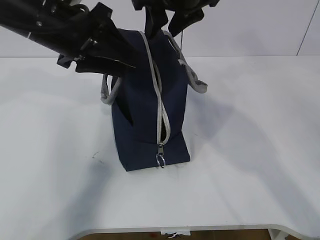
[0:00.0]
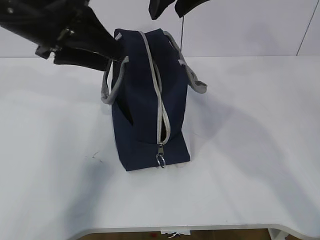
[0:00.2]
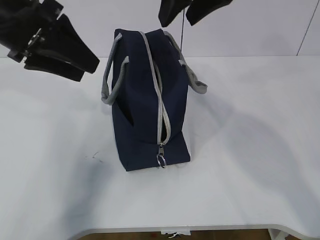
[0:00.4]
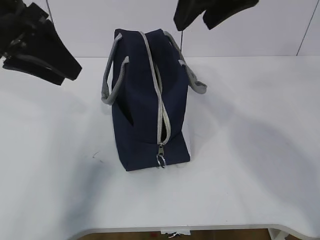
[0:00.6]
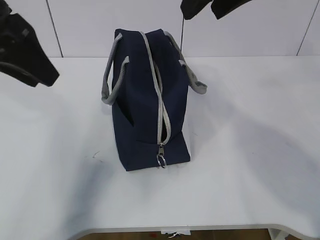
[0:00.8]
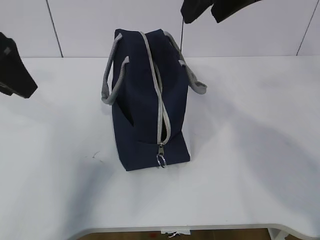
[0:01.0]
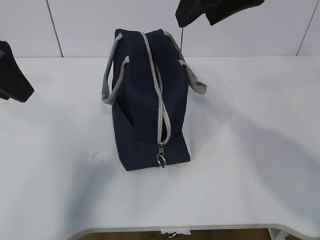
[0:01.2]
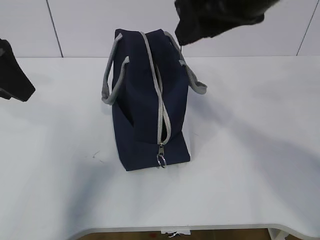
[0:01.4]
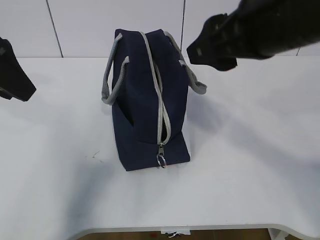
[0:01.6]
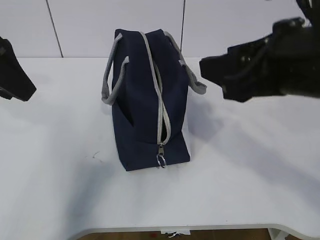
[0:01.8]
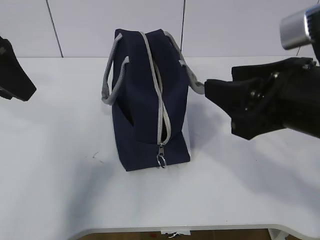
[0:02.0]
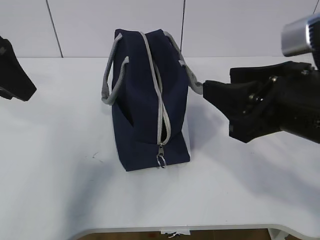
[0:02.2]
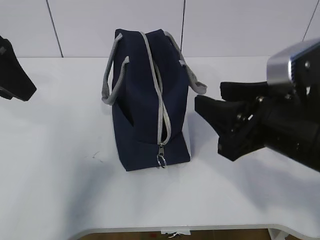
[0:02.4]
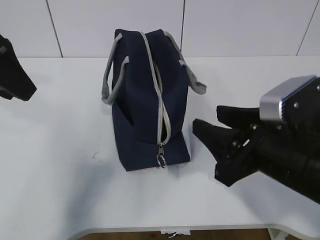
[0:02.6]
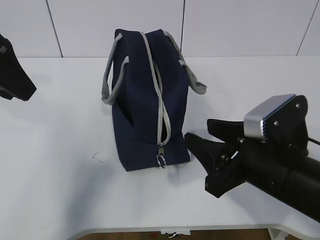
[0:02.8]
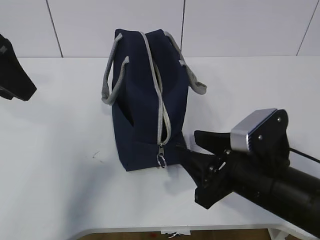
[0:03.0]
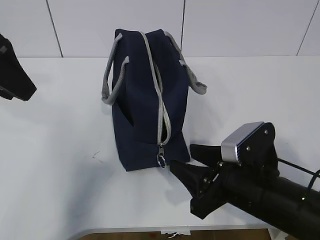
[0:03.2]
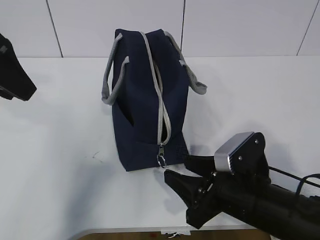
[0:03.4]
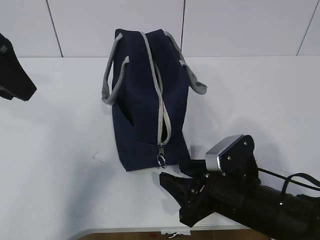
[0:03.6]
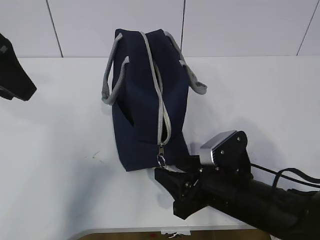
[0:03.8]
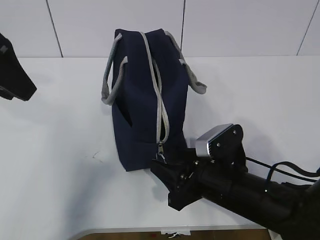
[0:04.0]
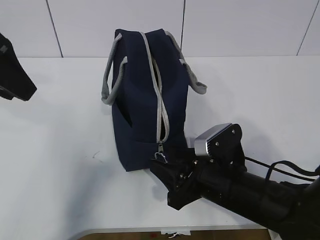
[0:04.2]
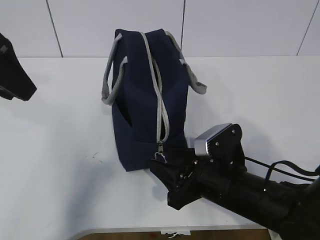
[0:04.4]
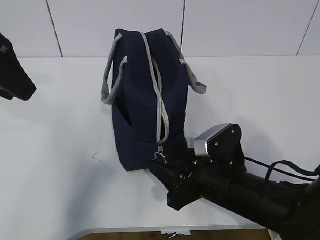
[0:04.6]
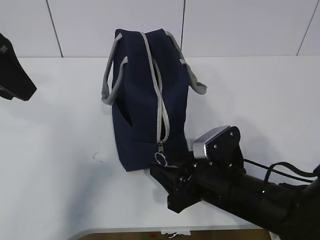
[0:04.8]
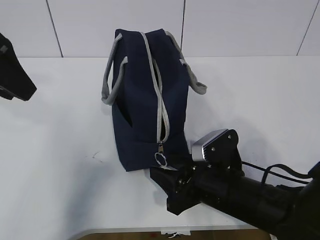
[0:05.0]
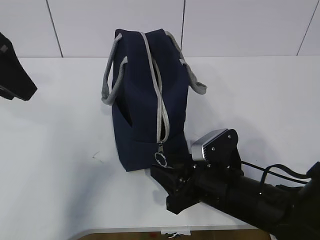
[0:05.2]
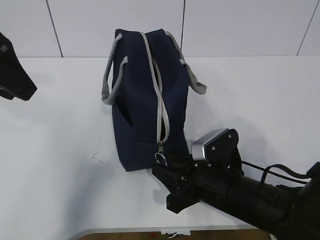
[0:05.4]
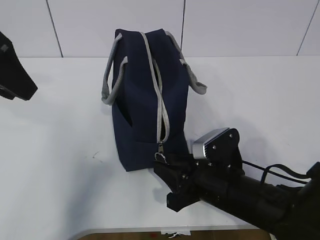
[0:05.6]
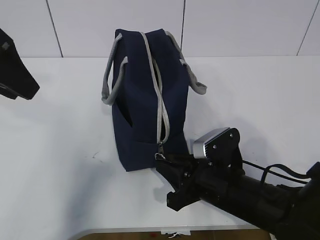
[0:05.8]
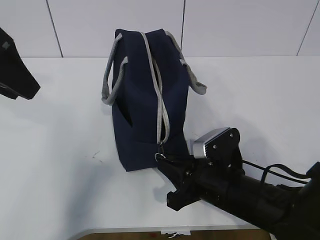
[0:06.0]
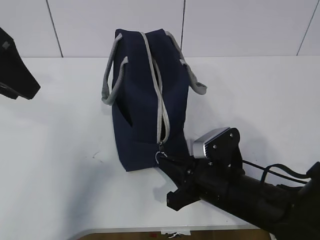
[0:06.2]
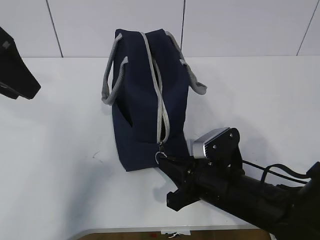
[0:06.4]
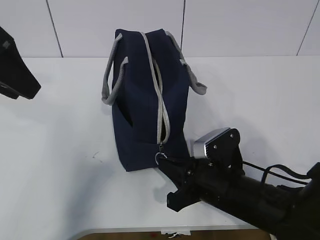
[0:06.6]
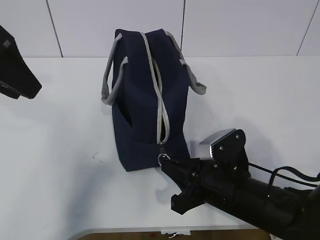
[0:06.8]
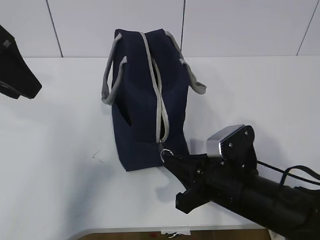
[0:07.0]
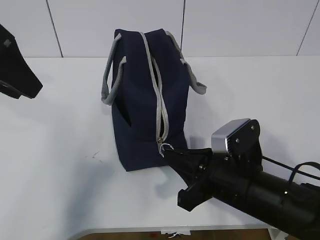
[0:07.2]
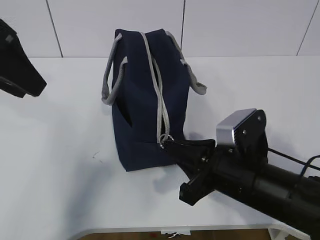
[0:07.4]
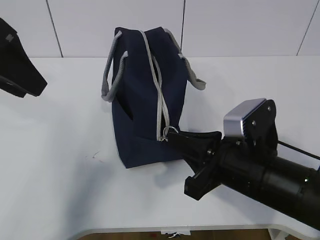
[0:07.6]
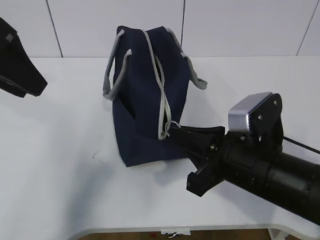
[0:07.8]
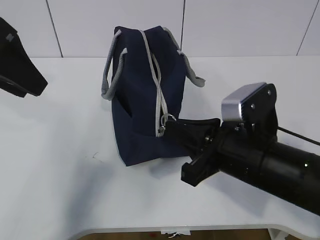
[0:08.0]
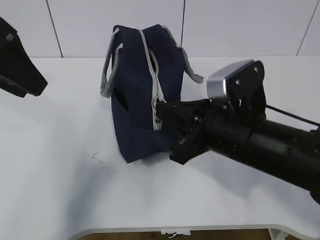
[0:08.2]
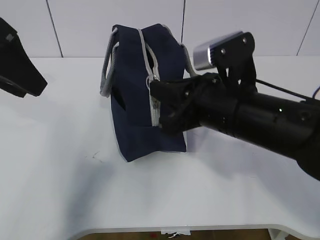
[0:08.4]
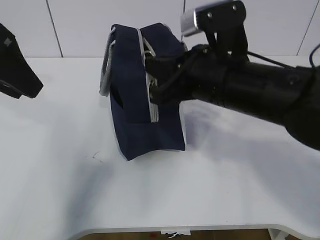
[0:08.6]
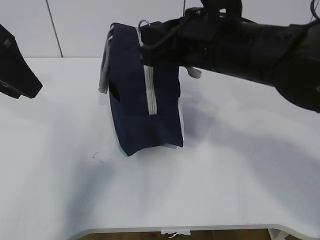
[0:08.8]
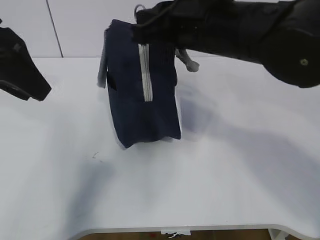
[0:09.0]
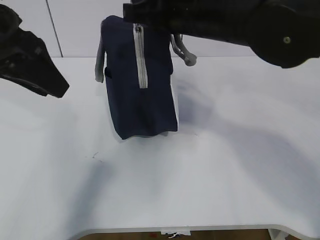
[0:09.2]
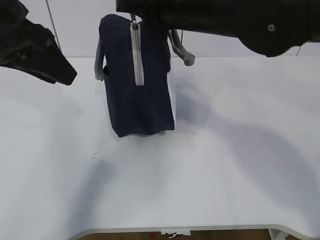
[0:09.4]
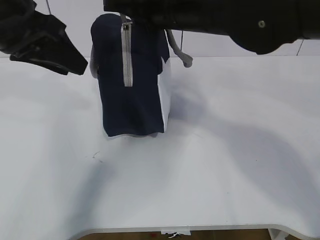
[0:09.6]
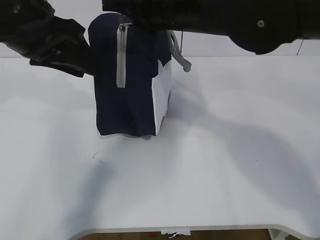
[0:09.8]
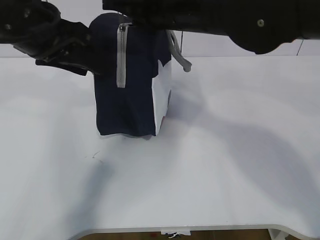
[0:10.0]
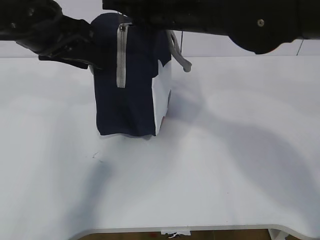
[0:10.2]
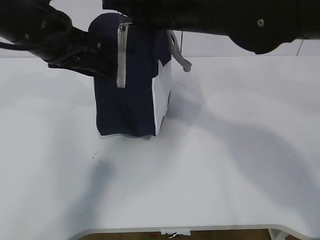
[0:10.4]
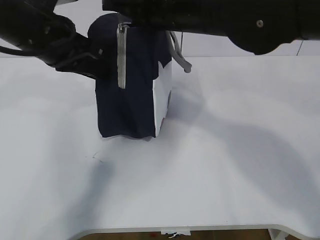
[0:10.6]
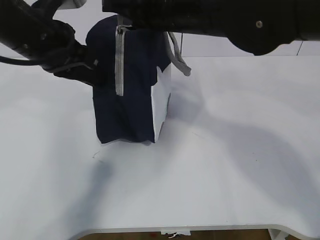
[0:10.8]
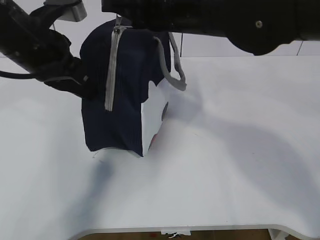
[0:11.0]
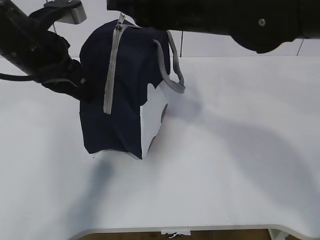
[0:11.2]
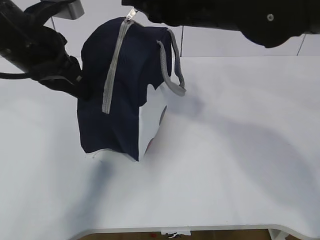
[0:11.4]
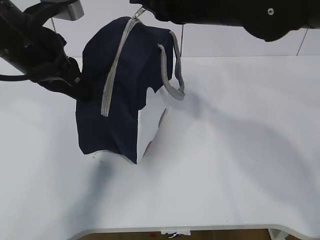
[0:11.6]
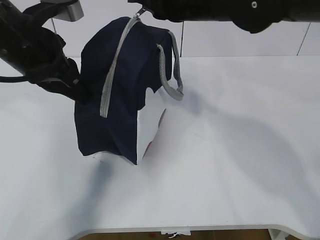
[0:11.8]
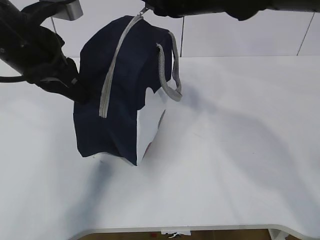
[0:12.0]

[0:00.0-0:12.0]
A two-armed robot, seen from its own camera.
Step, 0:00.0 to 0:05.6: Grab the lunch bag with your left hand.
Step, 0:05.8 to 0:10.4: Pull the zipper with your right hand.
0:00.0 to 0:01.6: The right gripper travels backward by about 15 cm; the left gripper travels to the left and backward by roughly 10 cm.
0:01.6 to 0:03.0: The right gripper heads downward, covering roughly 20 cm.
0:03.0 to 0:04.4: The right gripper goes some 5 cm downward.
0:04.4 to 0:06.0: The right gripper closes.
0:06.0 to 0:07.6: The right gripper travels upward by approximately 5 cm.
0:07.6 to 0:09.0: The right gripper goes roughly 20 cm upward and forward.
0:09.0 to 0:10.4: The left gripper is displaced forward and to the right by approximately 10 cm.
0:10.4 to 0:12.0: The right gripper heads forward, covering approximately 5 cm. Meanwhile the left gripper closes up.

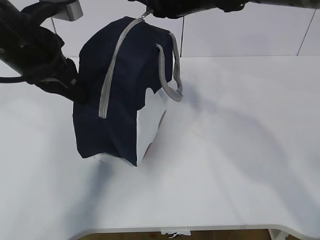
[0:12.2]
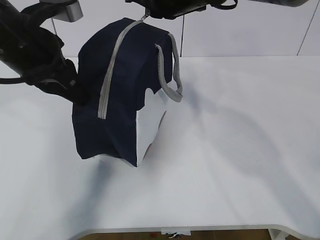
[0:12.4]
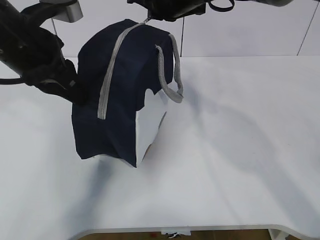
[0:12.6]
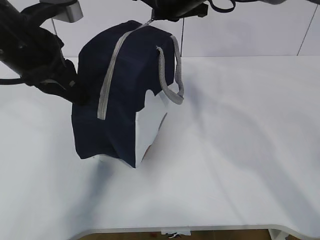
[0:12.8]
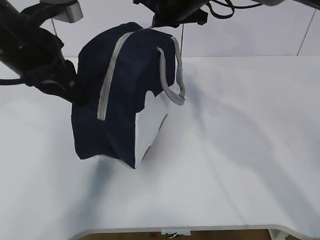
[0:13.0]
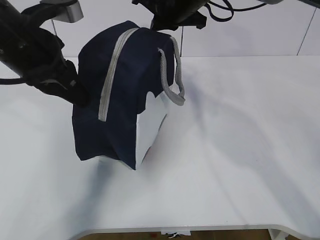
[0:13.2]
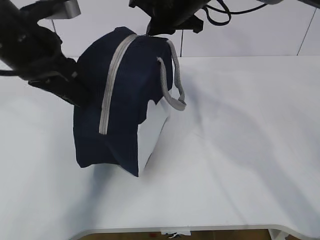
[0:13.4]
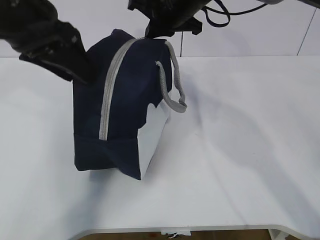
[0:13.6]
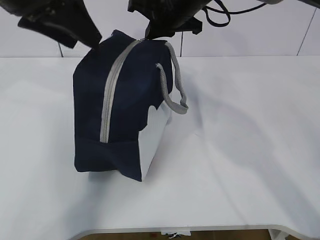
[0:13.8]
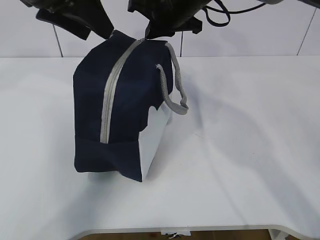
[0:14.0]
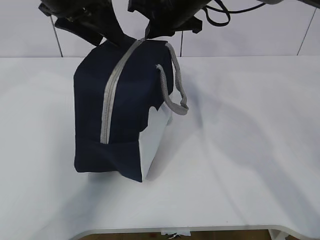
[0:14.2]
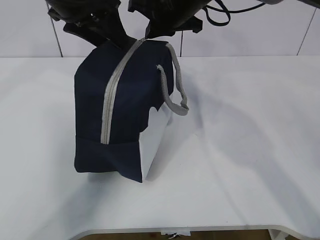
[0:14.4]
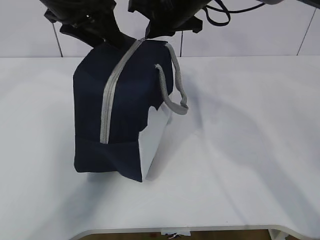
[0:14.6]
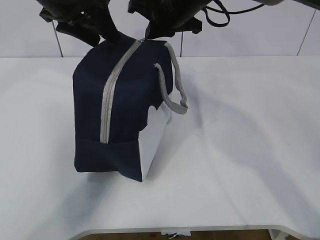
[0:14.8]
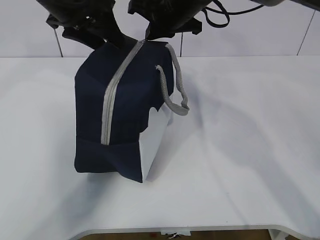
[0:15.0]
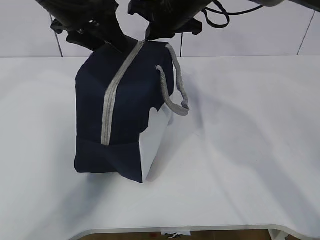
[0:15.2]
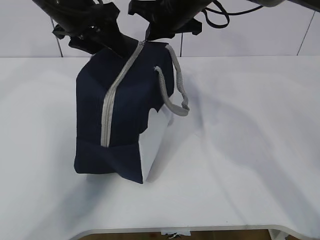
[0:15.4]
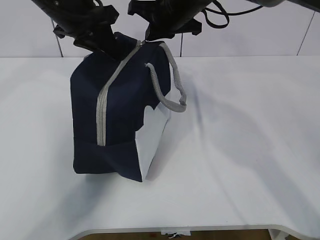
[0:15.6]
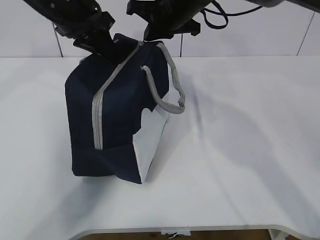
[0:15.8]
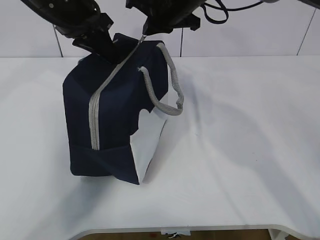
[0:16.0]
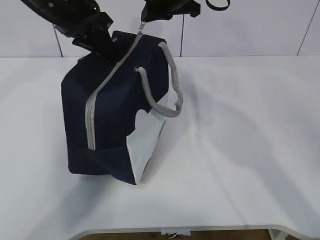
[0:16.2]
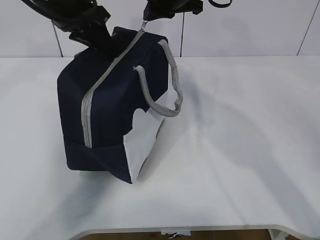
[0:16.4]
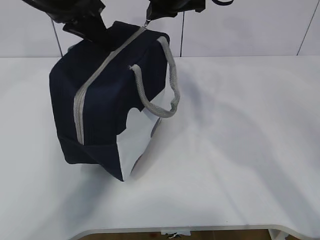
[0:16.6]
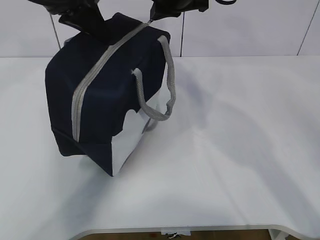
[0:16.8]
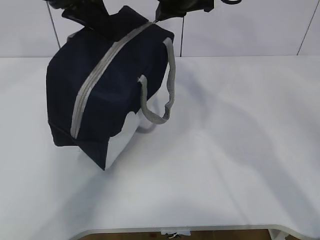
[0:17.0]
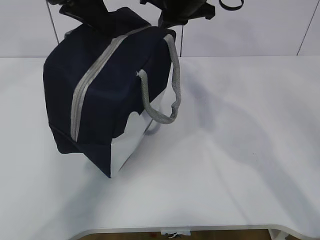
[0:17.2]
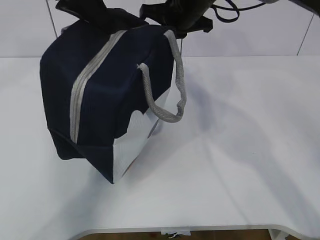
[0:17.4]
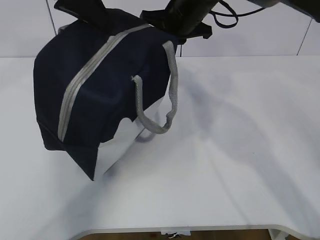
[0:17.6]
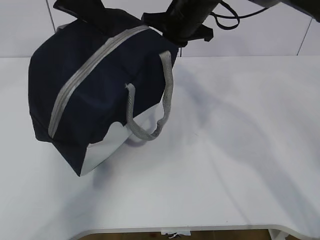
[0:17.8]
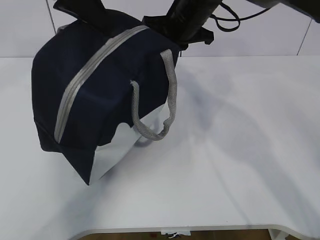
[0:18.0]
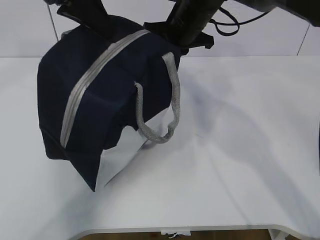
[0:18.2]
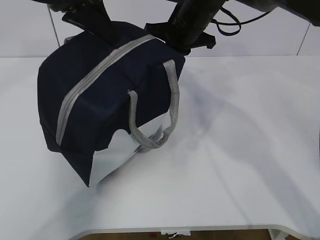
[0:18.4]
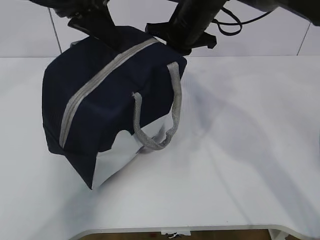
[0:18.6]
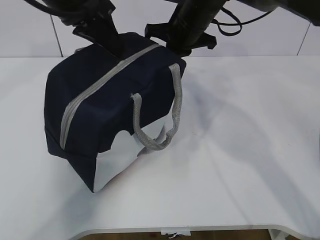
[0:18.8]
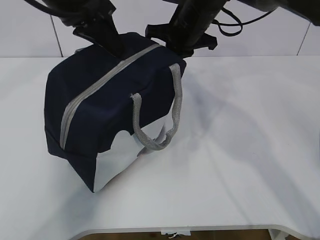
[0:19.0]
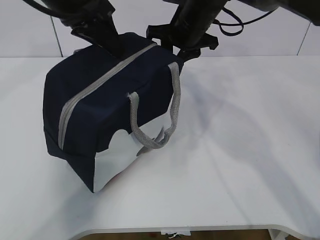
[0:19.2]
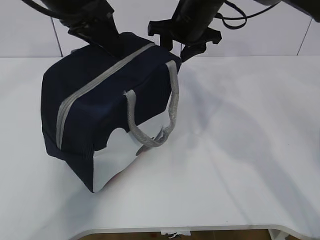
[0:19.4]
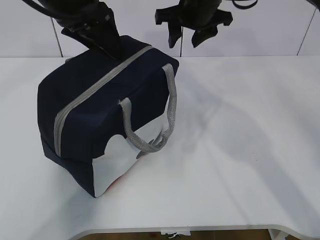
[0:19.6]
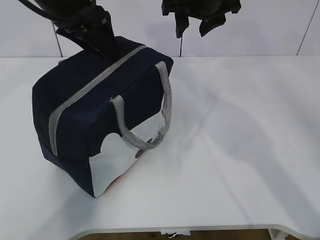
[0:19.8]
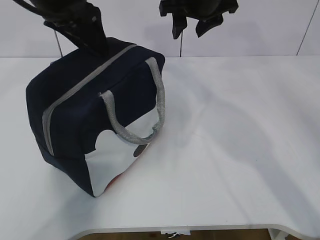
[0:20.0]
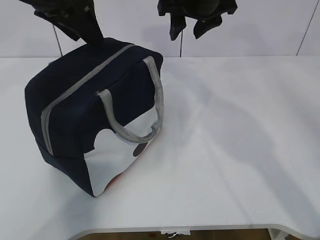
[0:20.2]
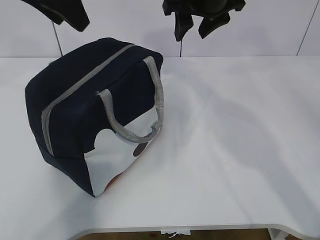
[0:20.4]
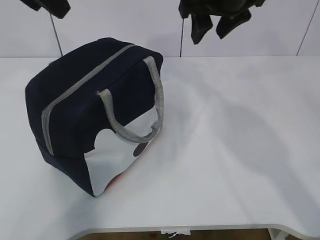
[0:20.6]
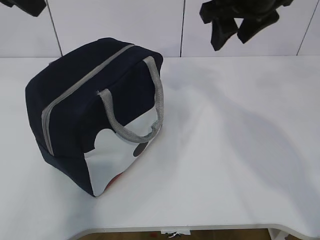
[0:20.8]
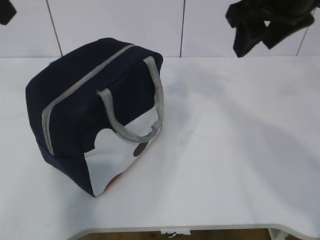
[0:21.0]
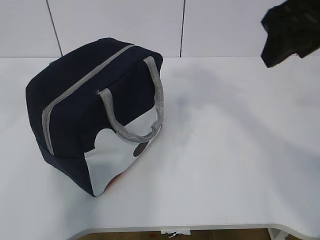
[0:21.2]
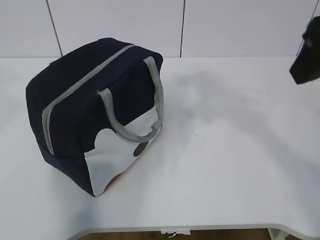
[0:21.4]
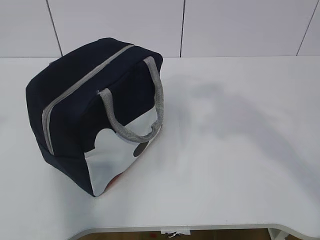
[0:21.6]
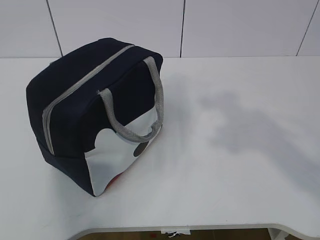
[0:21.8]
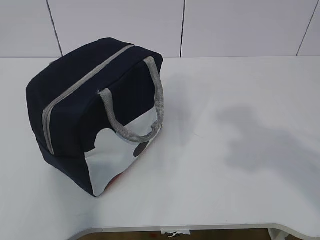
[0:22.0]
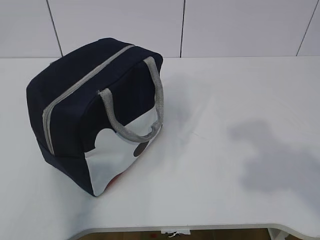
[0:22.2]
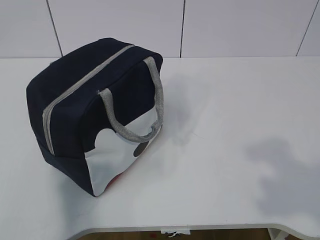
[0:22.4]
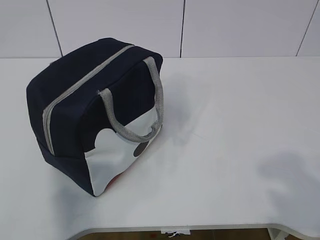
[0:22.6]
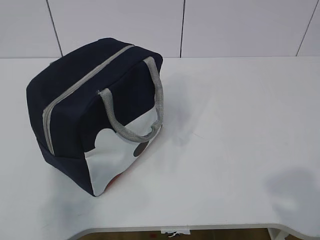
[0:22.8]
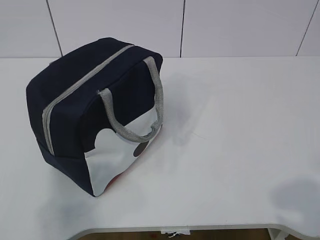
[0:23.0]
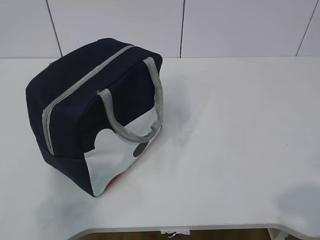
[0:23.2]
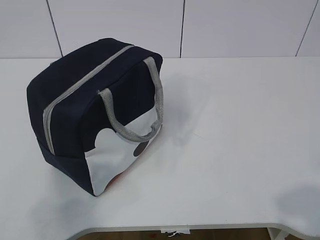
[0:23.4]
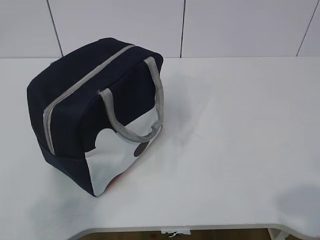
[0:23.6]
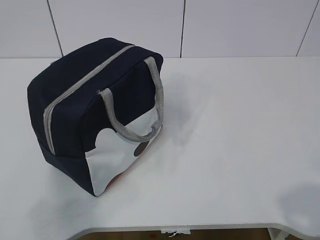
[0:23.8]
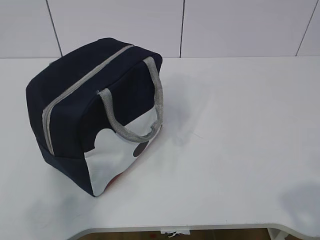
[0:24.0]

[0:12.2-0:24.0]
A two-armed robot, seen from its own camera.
0:12.2 to 0:13.6: The left gripper opens.
0:13.6 to 0:15.2: The left gripper is displaced forward by roughly 10 cm.
0:15.2 to 0:16.6: The left gripper closes.
0:16.6 to 0:18.2: The left gripper changes place by some 5 cm; the right gripper is displaced downward by some 5 cm.
0:18.2 to 0:19.6: The right gripper opens up. Meanwhile the left gripper opens.
0:19.6 to 0:21.0: The right gripper heads backward, covering about 15 cm. Meanwhile the left gripper goes about 20 cm backward, upward and to the left.
0:21.0 to 0:22.6: The left gripper goes about 30 cm backward and downward, and closes up, while the right gripper heads backward, covering roughly 30 cm.
